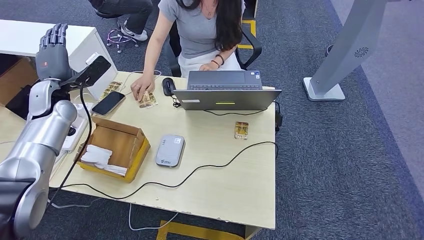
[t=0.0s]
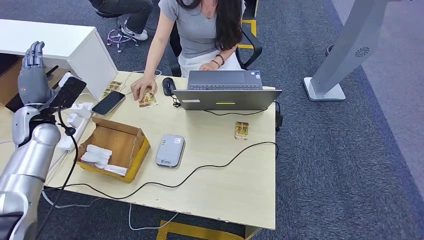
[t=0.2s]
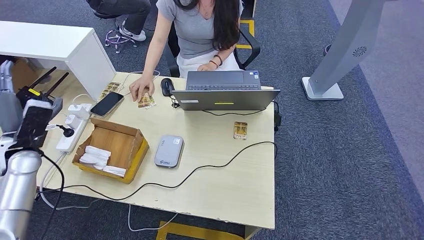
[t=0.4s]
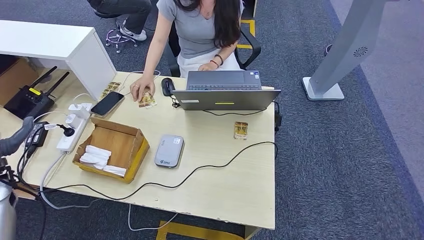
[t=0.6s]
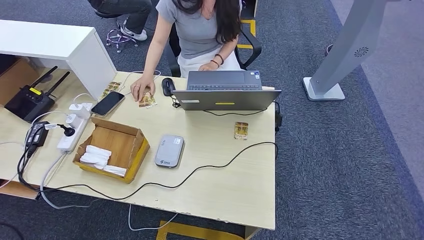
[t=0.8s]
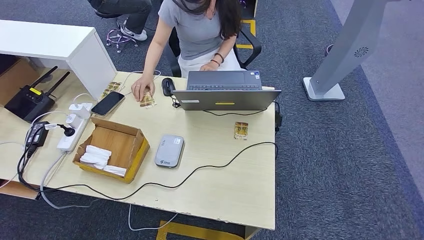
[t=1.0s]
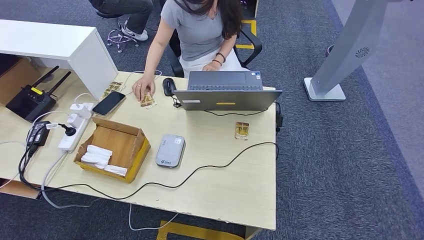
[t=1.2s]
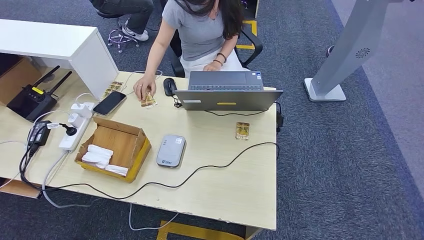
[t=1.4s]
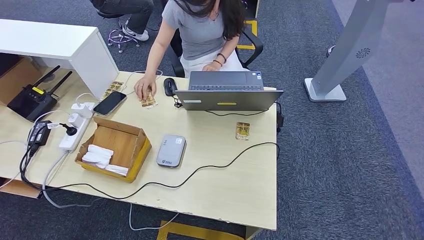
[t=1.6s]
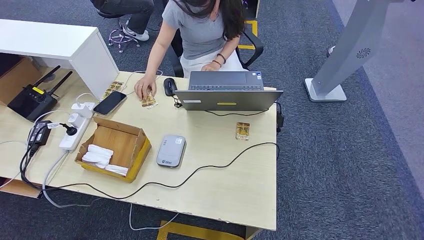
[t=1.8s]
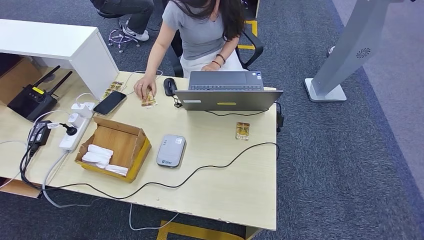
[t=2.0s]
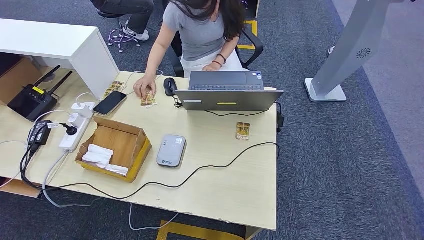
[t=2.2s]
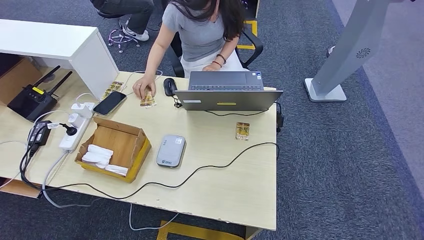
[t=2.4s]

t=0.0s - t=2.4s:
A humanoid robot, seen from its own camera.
Step, t=0.0s - t=2.4s: Hand the room key to the person.
t=0.0s - t=1.2s: The left hand heads backward, downward and to the left, covering approximately 50 cm.
t=1.2s - t=2.4s: The left hand moves to the right and downward, some 25 cm.
